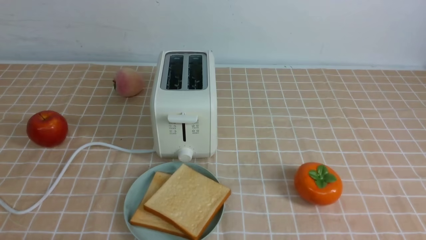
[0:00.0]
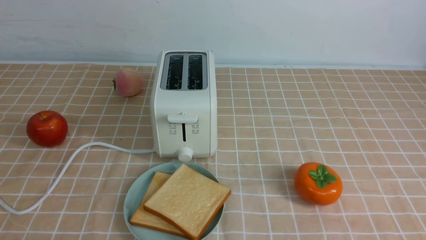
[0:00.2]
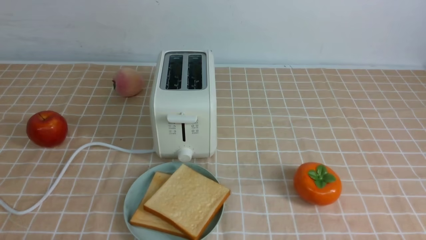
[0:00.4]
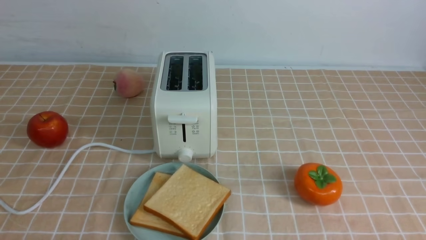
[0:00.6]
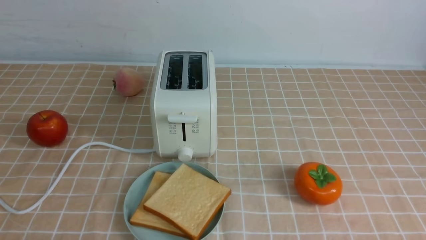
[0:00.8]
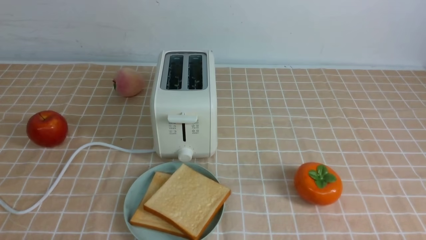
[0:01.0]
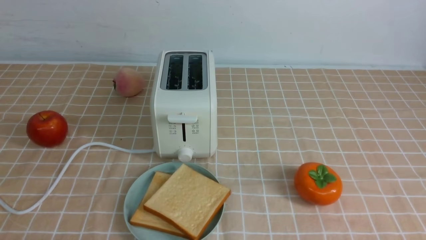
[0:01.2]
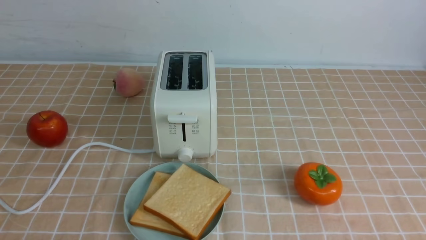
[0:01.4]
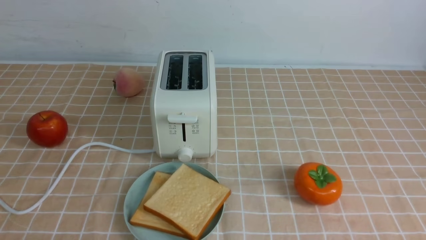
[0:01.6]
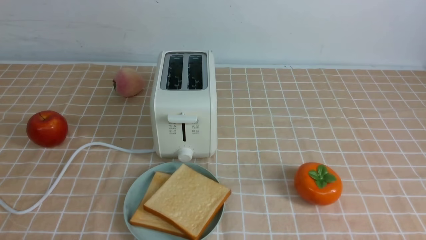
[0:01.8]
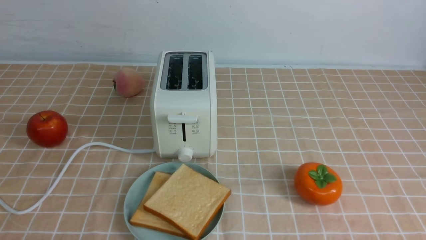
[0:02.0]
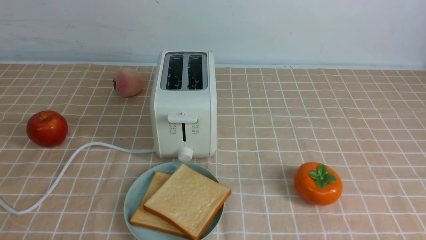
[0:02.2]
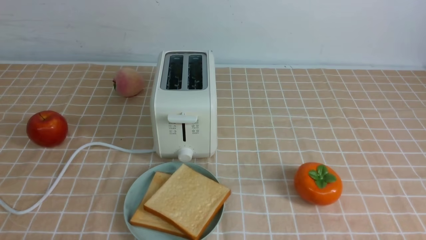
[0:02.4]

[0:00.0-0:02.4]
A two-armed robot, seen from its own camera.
Task of the whole recording: take toasted bread from bread machine on light coffee tablecloth place on plate.
0:01.2 to 0:02.4: Both grippers stay put.
